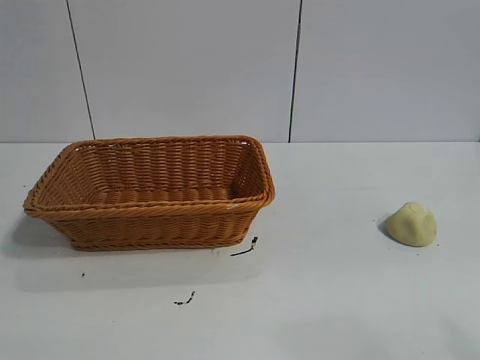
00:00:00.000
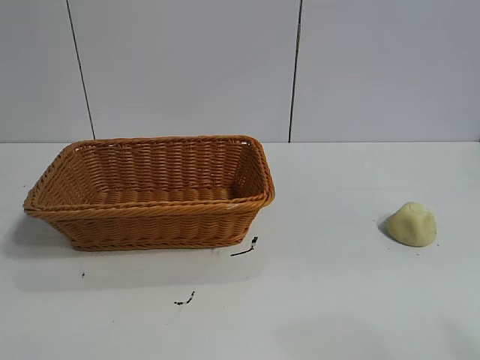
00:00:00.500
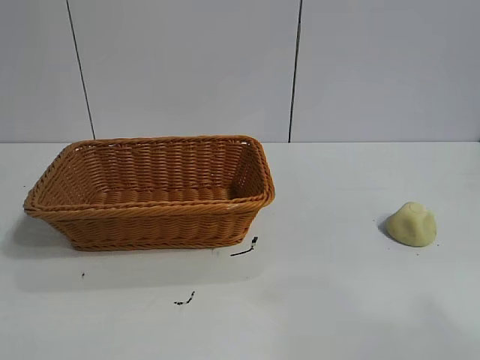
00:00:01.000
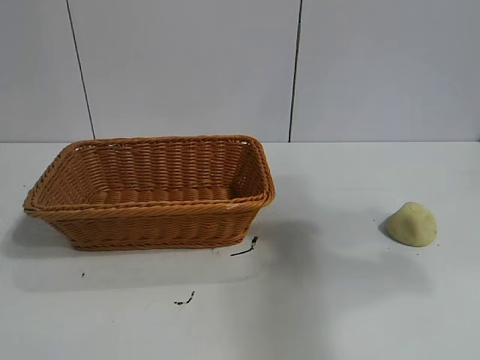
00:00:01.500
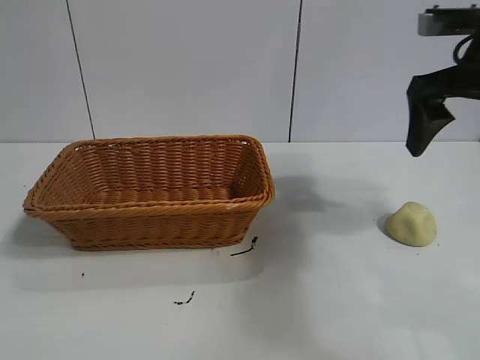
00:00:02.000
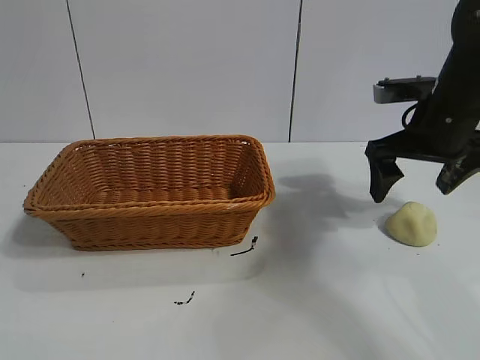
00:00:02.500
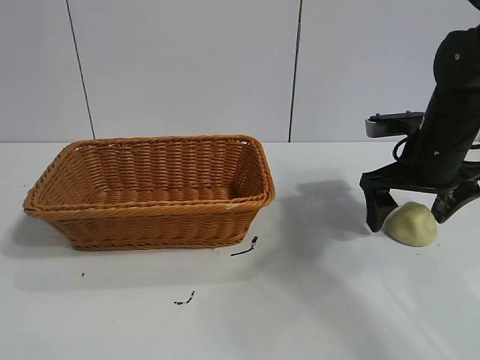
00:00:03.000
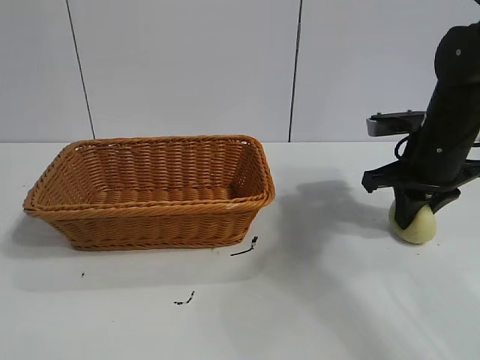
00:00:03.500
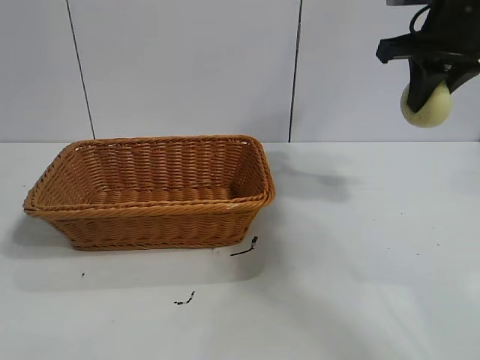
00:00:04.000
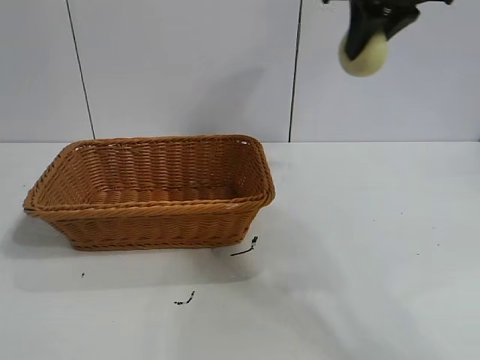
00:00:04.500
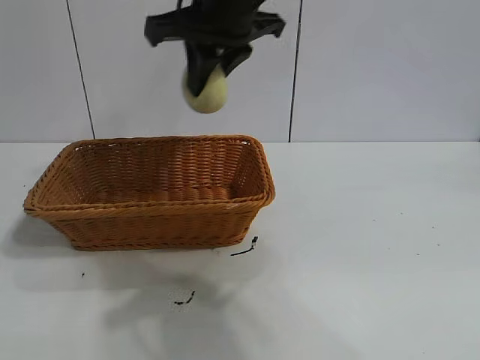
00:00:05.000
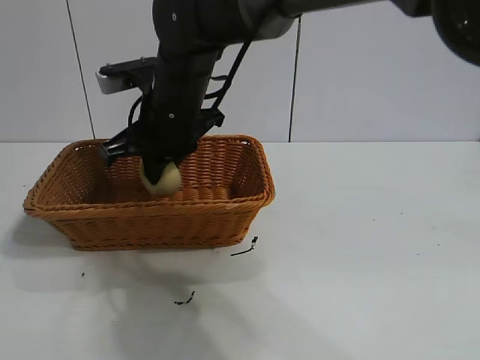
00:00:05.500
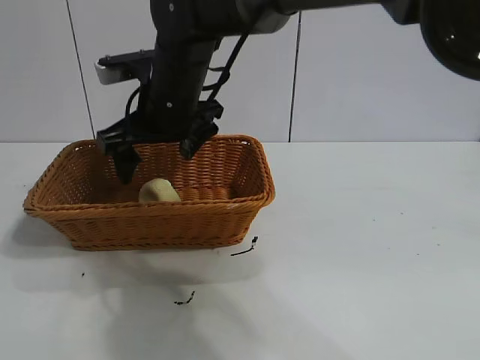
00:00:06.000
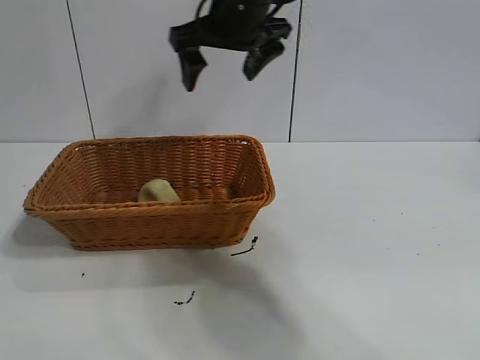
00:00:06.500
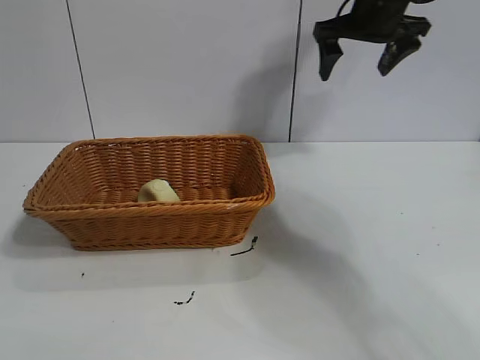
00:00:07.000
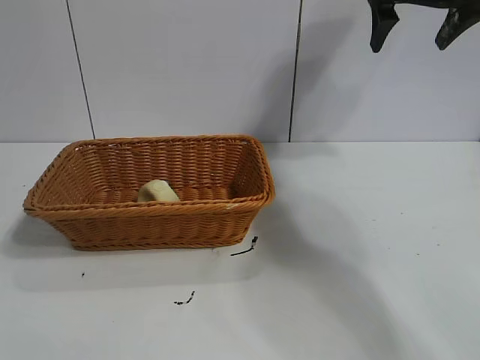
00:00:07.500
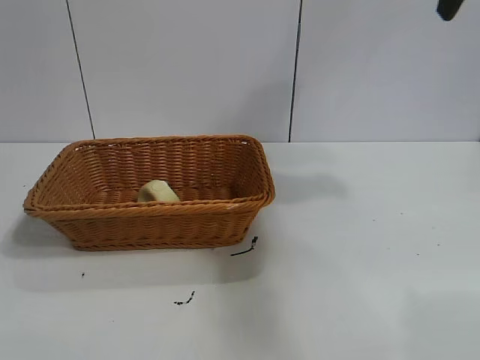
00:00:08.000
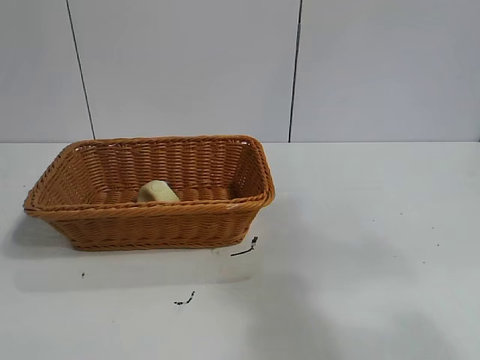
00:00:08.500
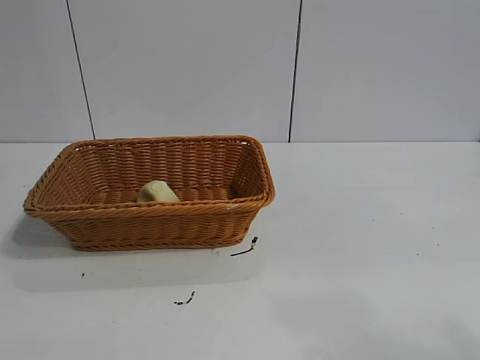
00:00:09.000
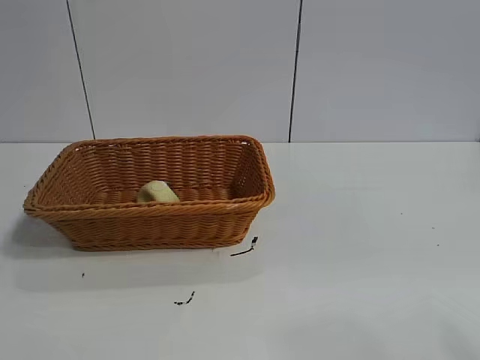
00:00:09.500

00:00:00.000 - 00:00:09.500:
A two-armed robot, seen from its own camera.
Task of the whole recording: pick up the egg yolk pastry and put it into the basket.
Step, 00:00:01.000 - 00:00:03.000: Grasp egg yolk pastry with right gripper.
Step, 00:00:03.500 - 00:00:05.500: Place the egg yolk pastry in the basket with right gripper.
